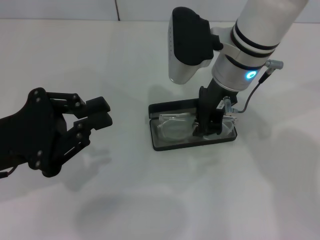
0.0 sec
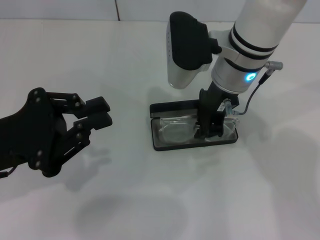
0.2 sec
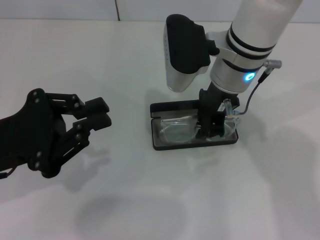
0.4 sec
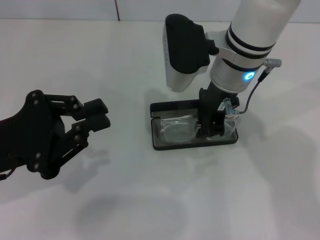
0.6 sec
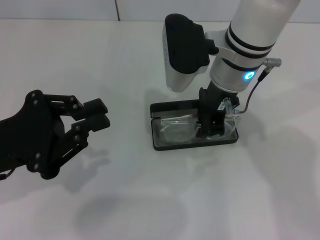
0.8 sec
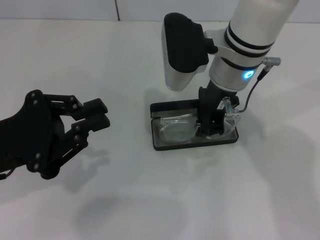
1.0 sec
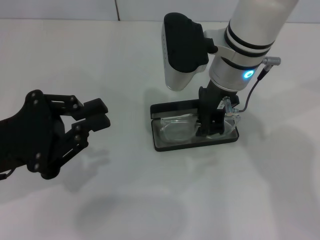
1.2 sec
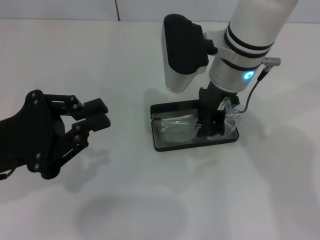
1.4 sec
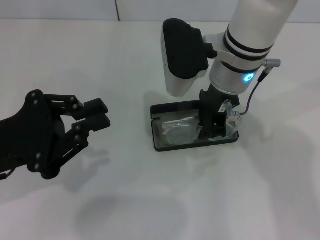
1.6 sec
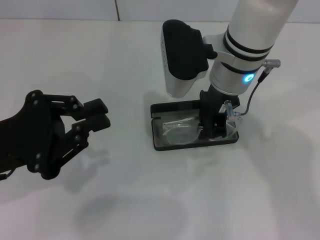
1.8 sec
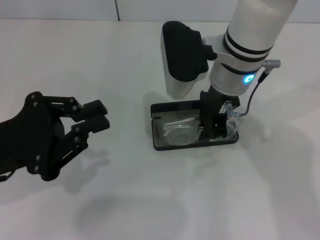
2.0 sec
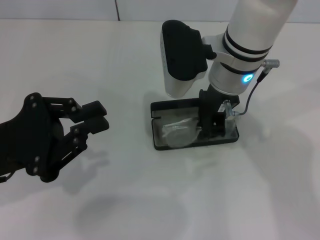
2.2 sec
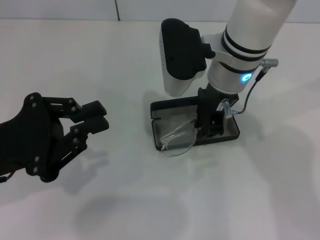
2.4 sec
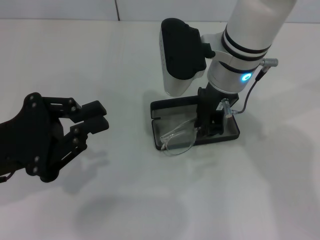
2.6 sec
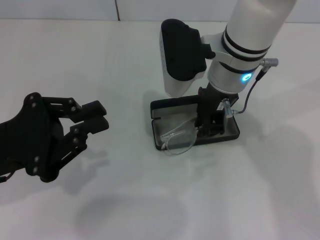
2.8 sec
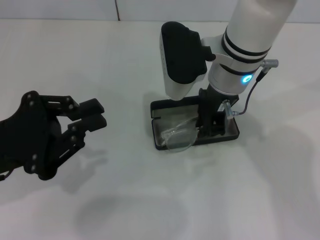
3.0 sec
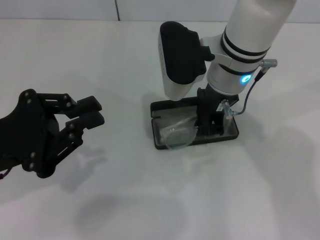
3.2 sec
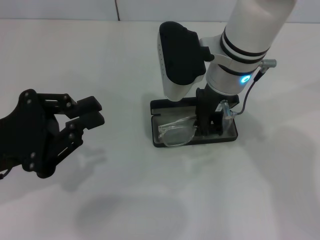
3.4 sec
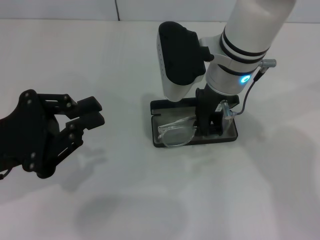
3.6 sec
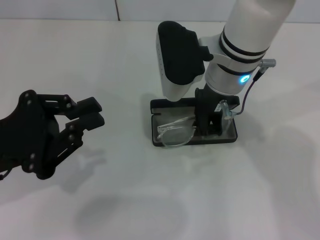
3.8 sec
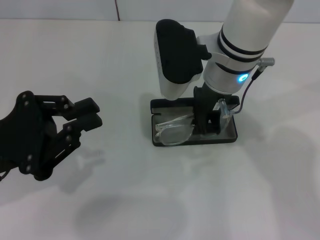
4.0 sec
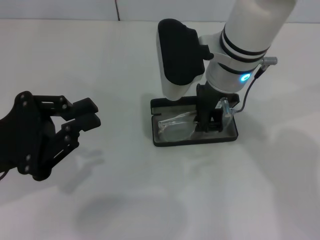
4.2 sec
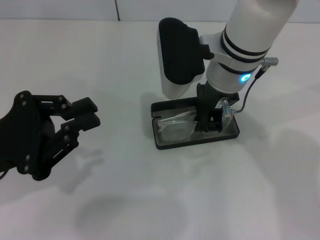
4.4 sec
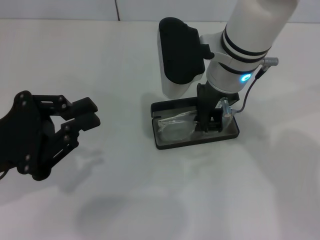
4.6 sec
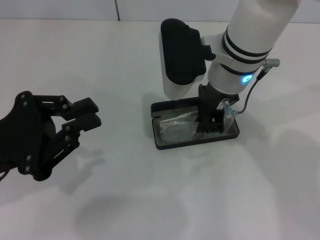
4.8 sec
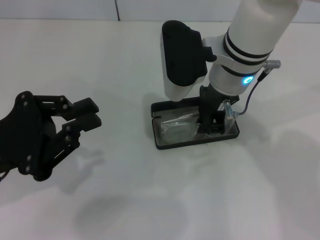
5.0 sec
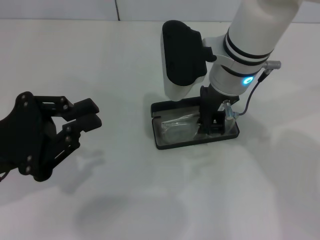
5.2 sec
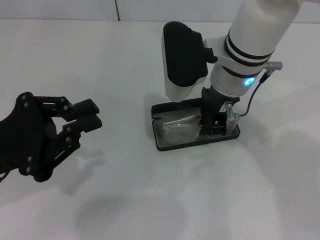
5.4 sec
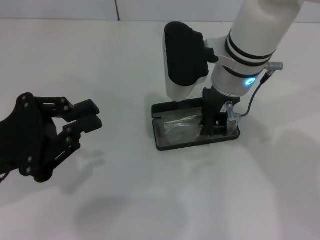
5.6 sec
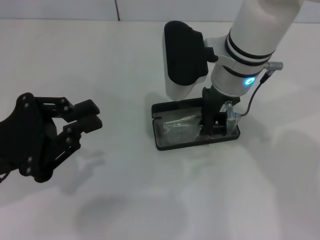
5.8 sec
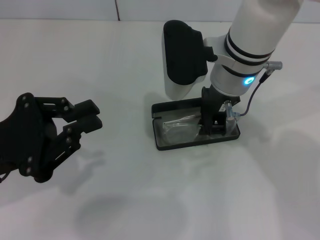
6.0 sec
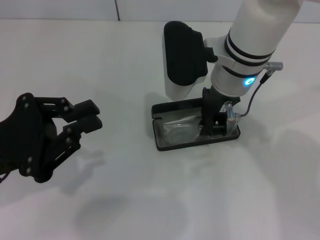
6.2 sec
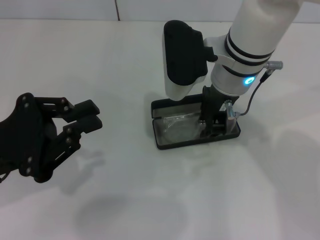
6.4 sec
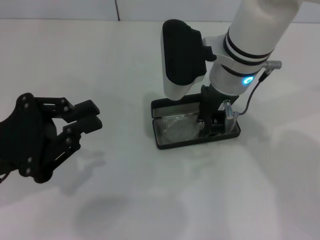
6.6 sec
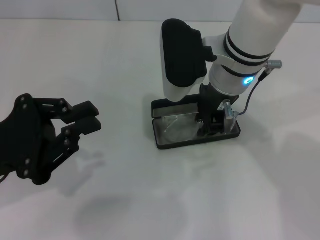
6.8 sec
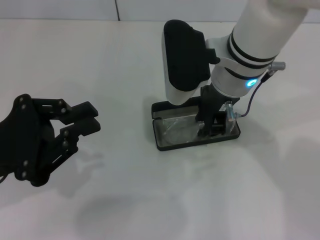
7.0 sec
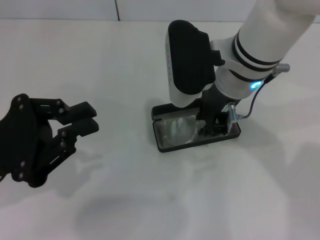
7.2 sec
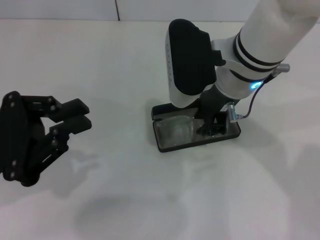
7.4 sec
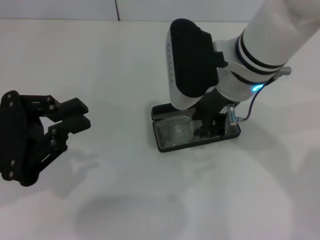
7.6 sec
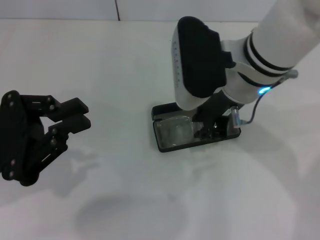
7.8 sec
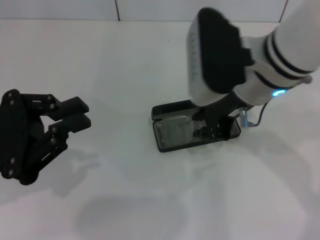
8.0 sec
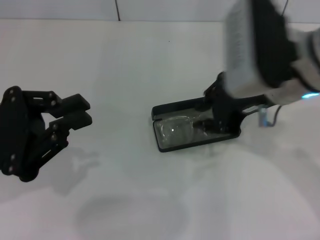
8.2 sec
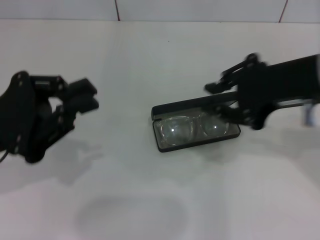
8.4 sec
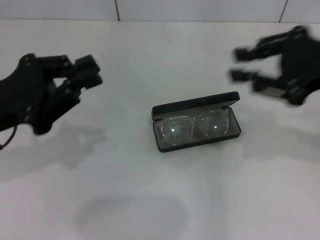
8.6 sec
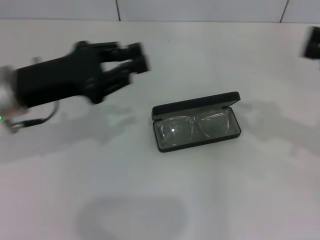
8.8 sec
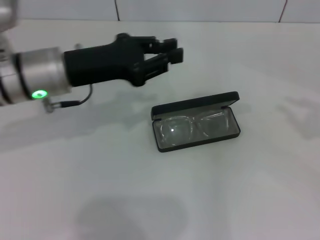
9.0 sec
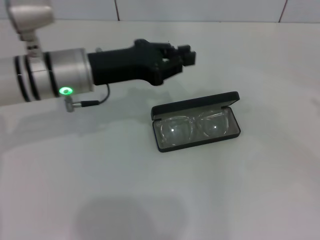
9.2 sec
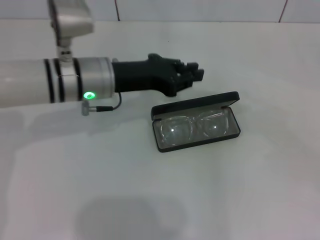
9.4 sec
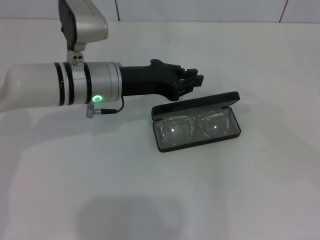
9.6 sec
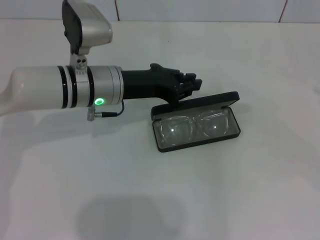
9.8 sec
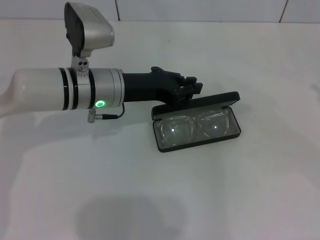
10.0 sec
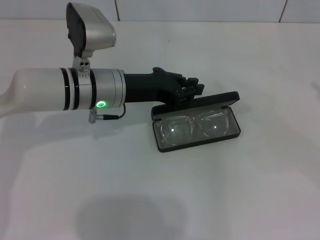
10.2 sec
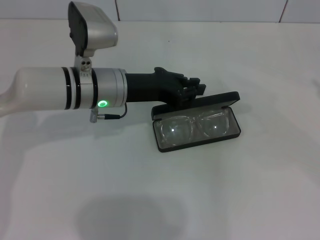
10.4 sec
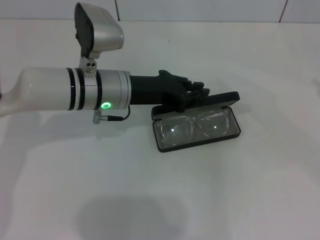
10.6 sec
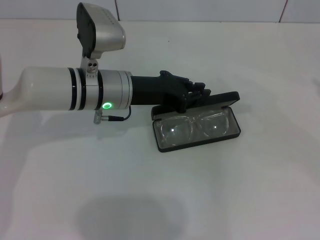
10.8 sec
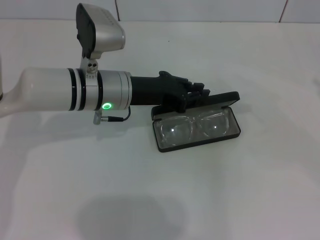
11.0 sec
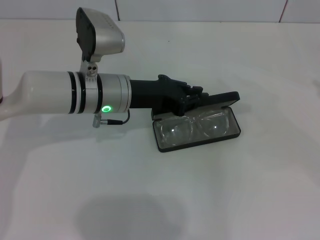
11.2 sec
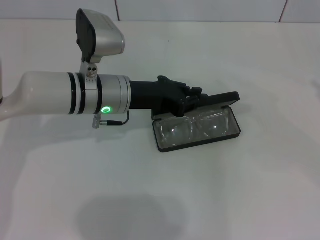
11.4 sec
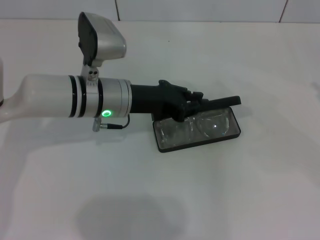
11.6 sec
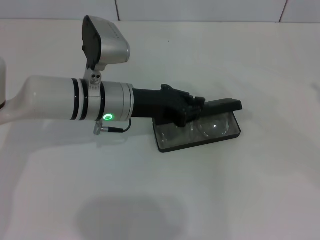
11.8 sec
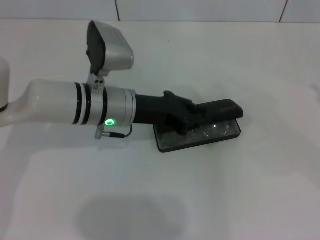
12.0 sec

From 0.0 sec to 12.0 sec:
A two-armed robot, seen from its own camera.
Step, from 0.0 sec to 7.4 sec: Put the glasses into the case with your right hand.
From 0.0 sec to 1.6 sec: The grippers stay close to where they were, moving slightly.
From 1.6 sec to 3.0 sec: Both grippers stay put.
From 3.0 sec to 6.0 sec: Both grippers stay about where they are.
From 6.0 sec to 7.6 sec: The grippers stay close to where they were, moving slightly.
From 7.6 sec to 9.0 sec: The right gripper heads to the right, covering some 30 cm. The left gripper moves forward and to the right, about 15 cm.
From 9.0 sec to 10.4 sec: The left gripper moves to the right, some 5 cm.
From 10.4 sec to 12.0 sec: The grippers move only a little.

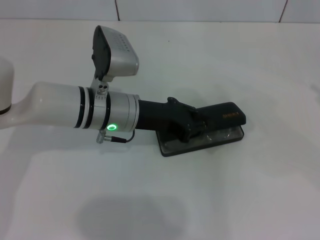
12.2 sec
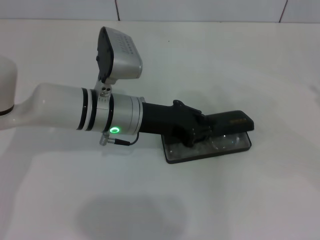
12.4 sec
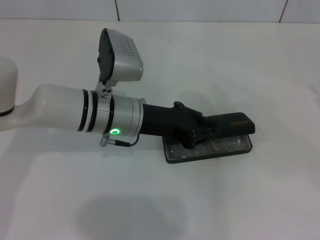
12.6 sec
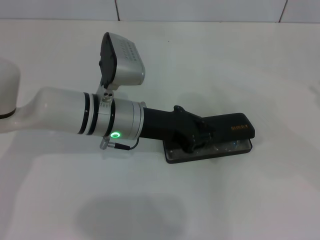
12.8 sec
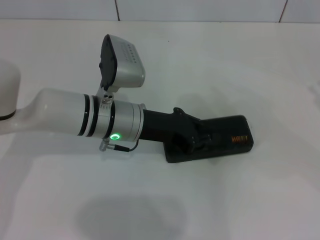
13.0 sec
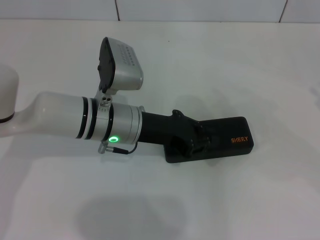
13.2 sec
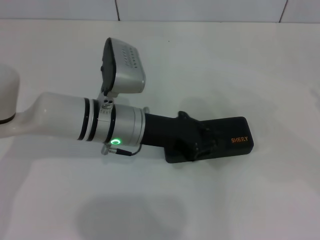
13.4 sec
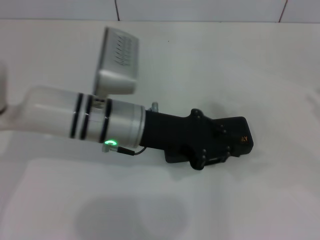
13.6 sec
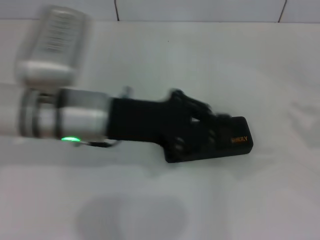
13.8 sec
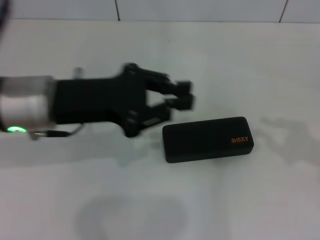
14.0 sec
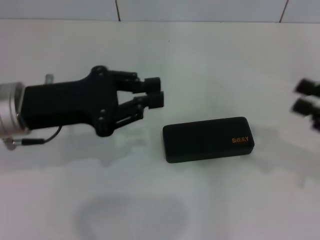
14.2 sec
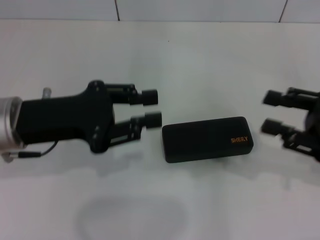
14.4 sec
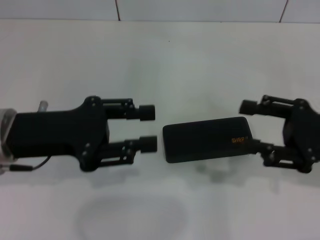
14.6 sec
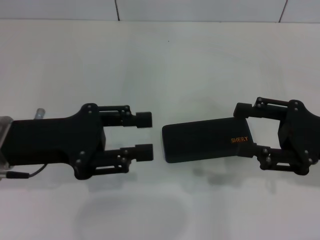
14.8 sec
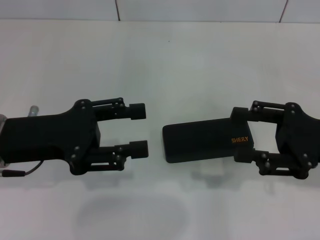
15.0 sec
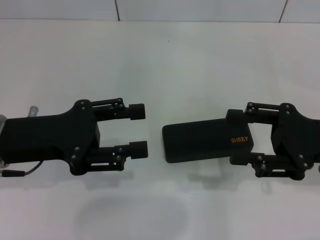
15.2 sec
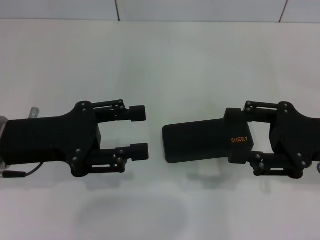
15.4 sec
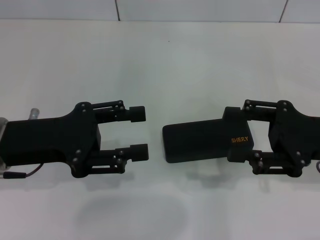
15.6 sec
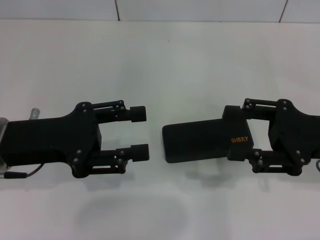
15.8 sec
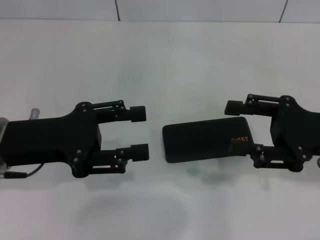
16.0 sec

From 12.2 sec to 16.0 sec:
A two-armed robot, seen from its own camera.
From 12.2 sec to 13.4 sec: The grippers make only small movements.
From 13.4 sec to 14.8 sec: The right gripper is displaced to the left by some 15 cm, and opens up. The left gripper goes roughly 15 cm to the left, backward and upward, and opens.
From 14.8 sec to 16.0 sec: The grippers stay close to where they were, moving slightly.

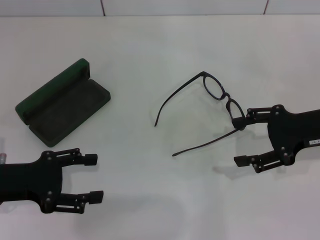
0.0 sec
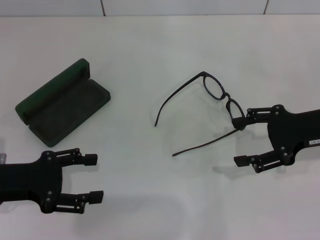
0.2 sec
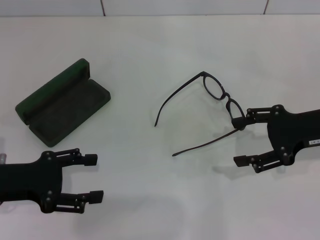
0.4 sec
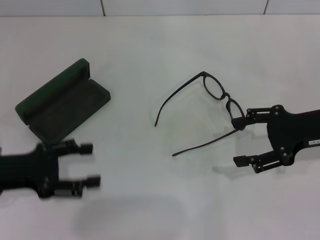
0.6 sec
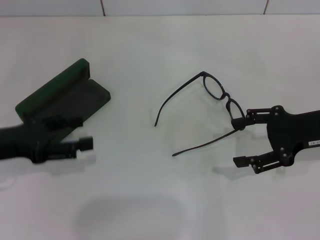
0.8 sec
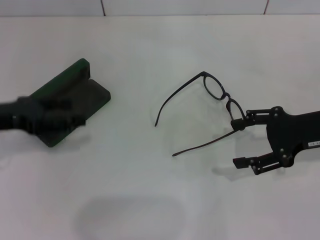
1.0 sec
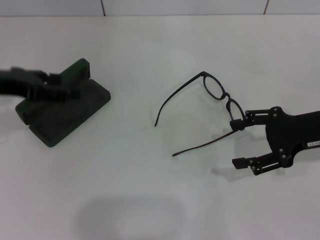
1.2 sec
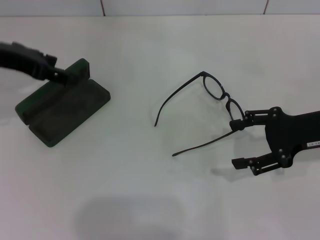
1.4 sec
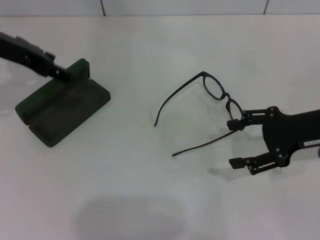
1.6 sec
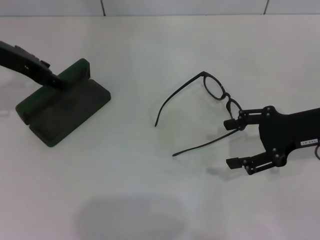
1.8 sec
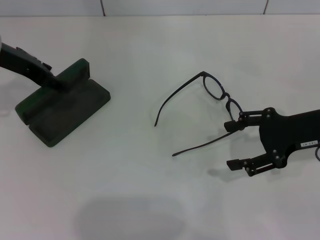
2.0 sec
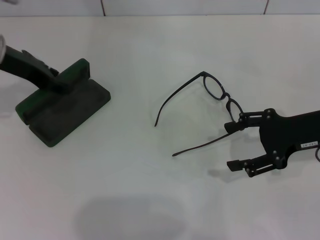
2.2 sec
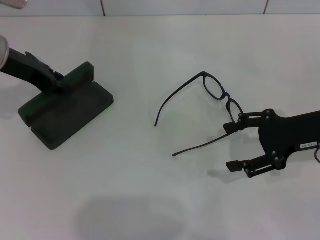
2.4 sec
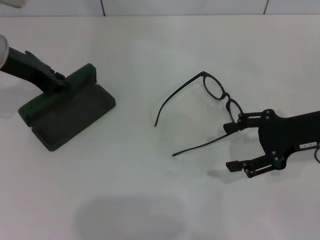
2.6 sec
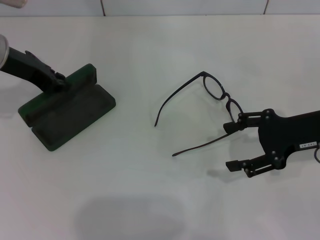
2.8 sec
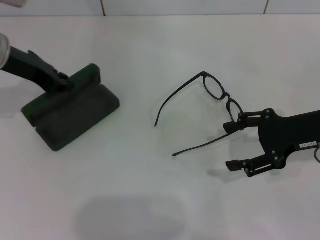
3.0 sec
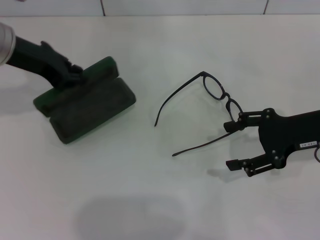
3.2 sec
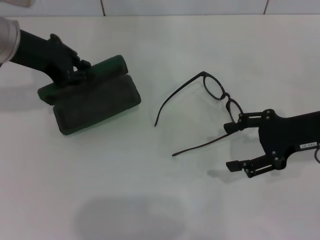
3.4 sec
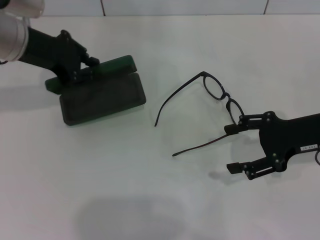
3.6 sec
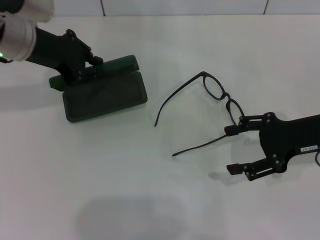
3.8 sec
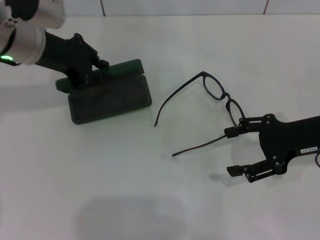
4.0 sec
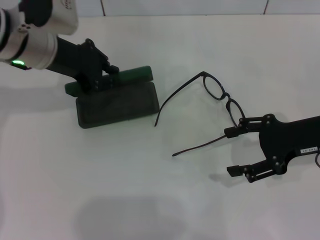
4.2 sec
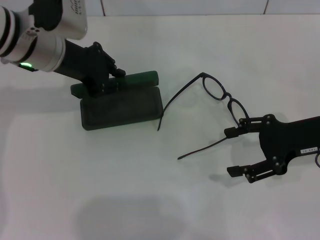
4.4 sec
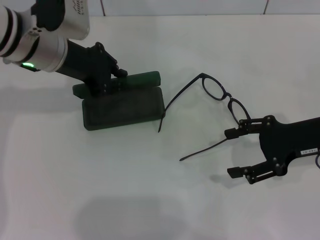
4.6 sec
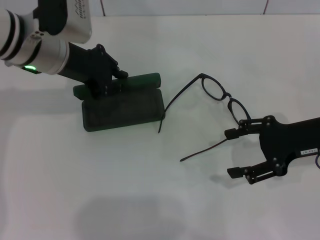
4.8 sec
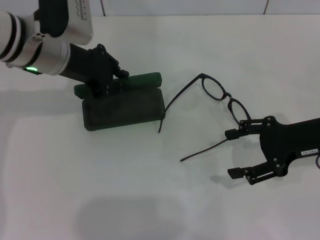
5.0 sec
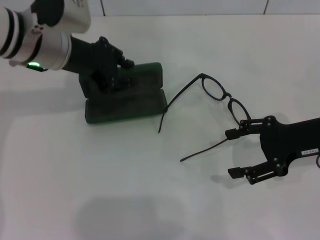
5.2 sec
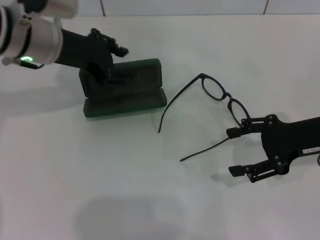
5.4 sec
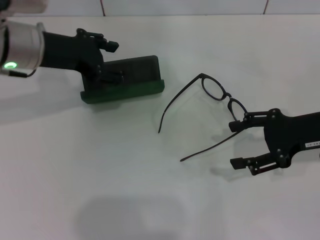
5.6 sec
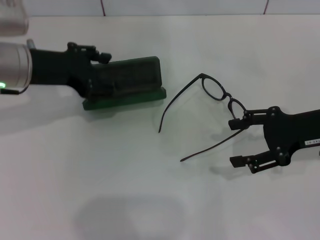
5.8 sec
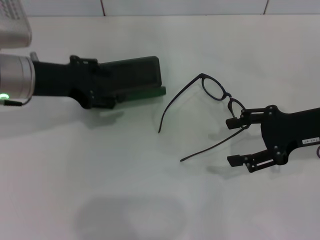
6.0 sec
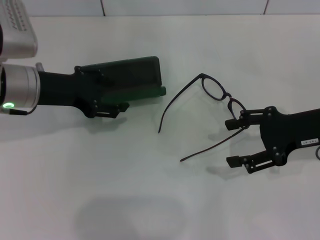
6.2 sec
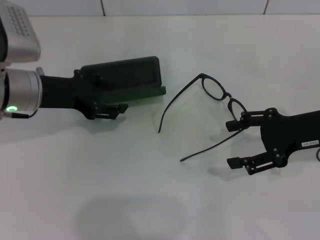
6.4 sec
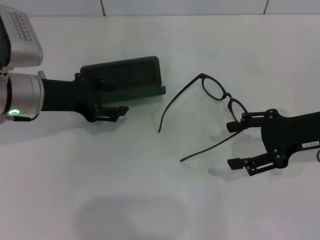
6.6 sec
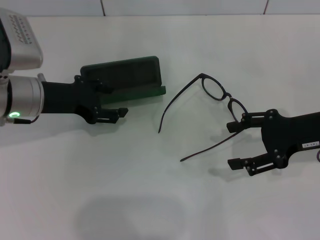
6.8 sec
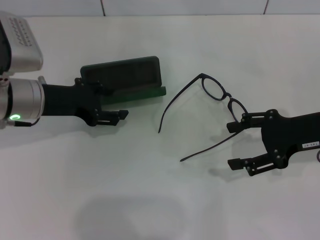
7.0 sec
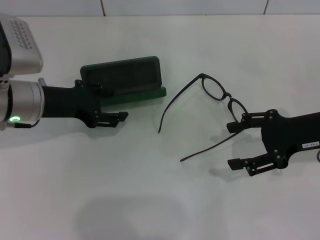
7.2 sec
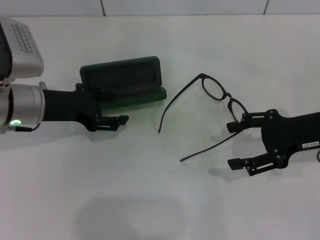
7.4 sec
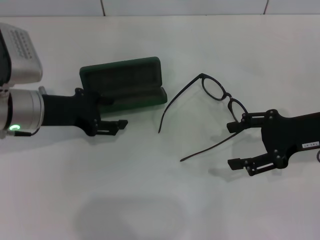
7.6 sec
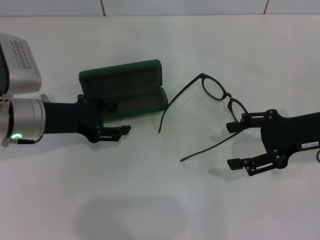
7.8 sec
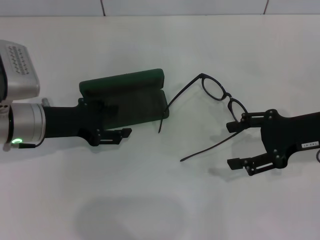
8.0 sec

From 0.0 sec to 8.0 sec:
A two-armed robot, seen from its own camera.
Step, from 0.0 sec to 2.8 sec: Grab the glasses case with your left hand.
Step, from 3.0 sec to 8.0 sec: Place the glasses case in the center of the table with your left hand.
From 0.0 sec to 1.6 sec: The left gripper is displaced forward and upward by approximately 20 cm.
From 1.6 sec to 3.2 sec: The left gripper closes.
From 3.2 sec to 4.8 sec: The left gripper is displaced to the right by about 5 cm.
From 4.8 sec to 6.4 sec: The left gripper ends up roughly 10 cm from where it was, and opens.
From 6.4 sec to 8.0 sec: The left gripper moves some 5 cm.
